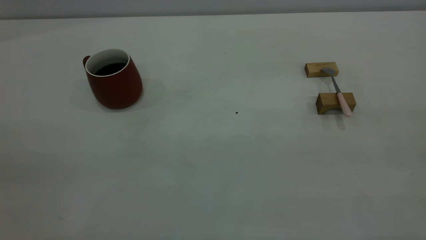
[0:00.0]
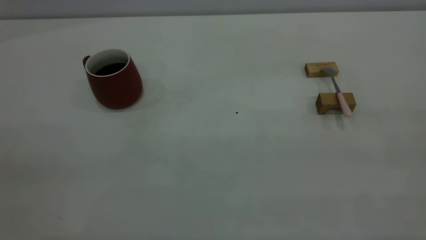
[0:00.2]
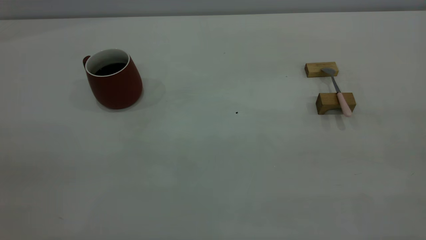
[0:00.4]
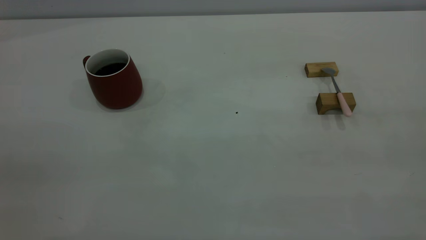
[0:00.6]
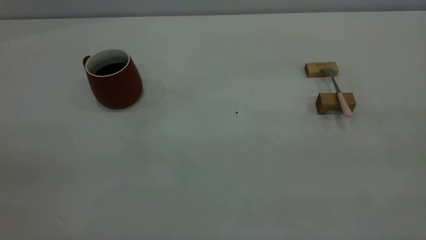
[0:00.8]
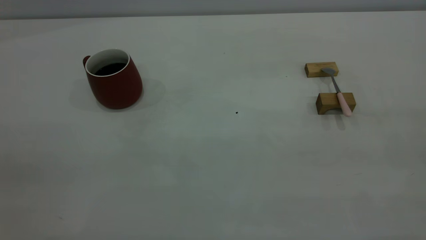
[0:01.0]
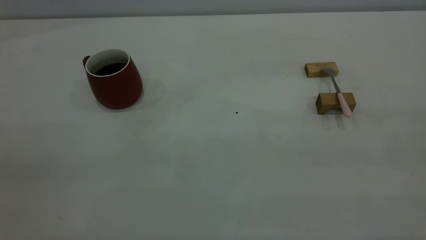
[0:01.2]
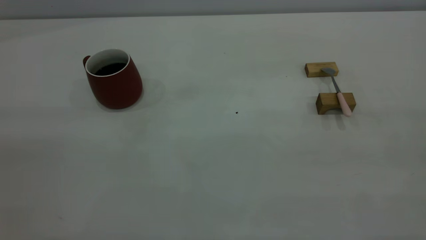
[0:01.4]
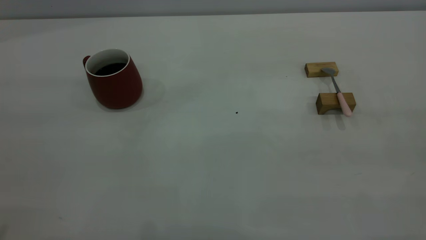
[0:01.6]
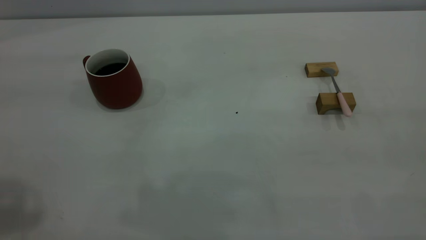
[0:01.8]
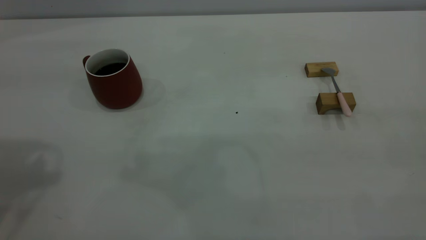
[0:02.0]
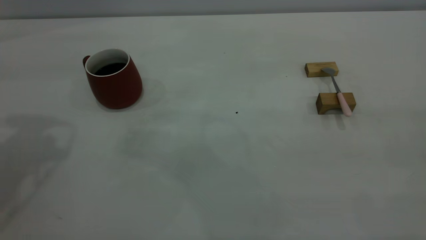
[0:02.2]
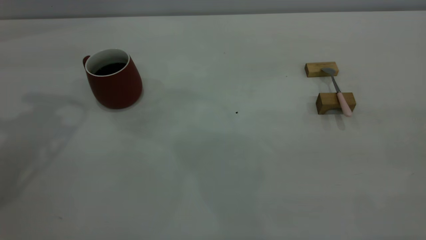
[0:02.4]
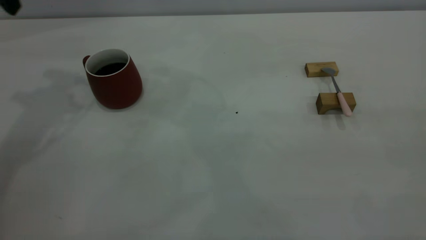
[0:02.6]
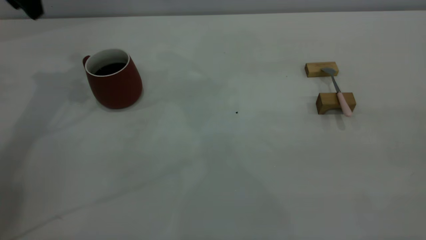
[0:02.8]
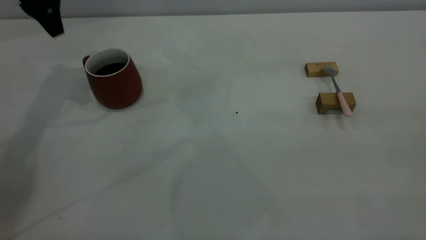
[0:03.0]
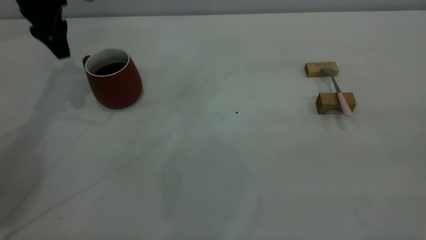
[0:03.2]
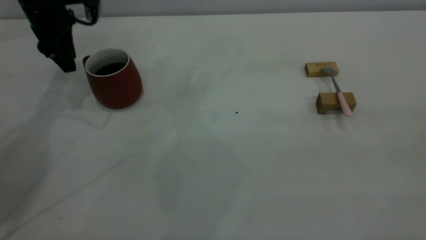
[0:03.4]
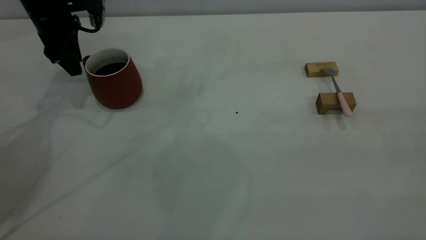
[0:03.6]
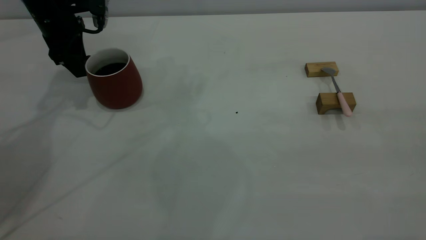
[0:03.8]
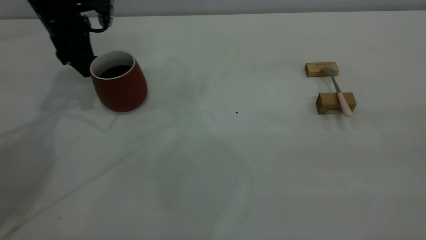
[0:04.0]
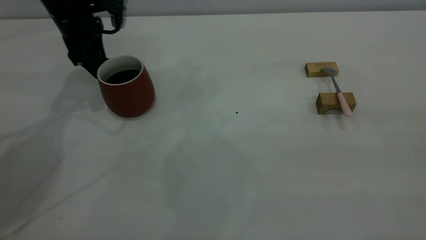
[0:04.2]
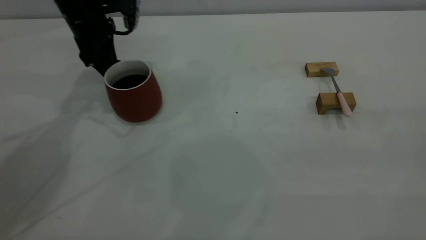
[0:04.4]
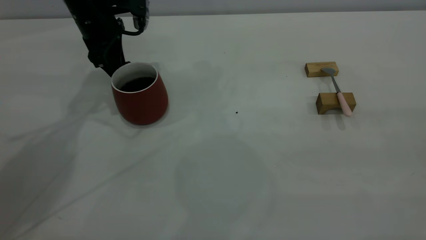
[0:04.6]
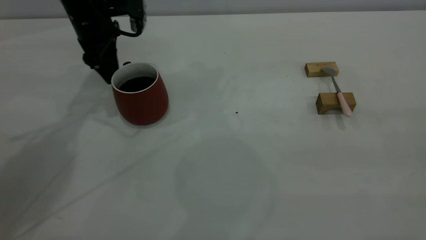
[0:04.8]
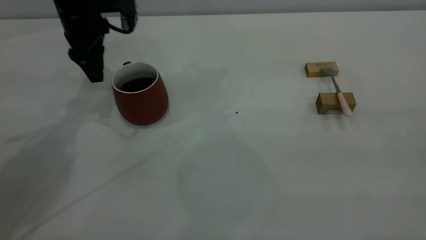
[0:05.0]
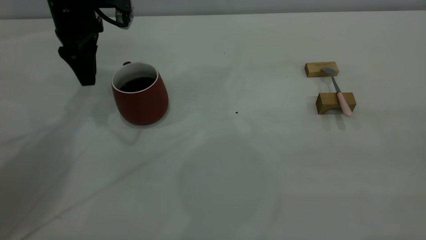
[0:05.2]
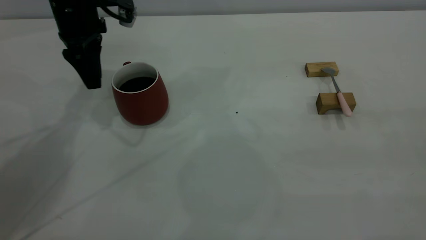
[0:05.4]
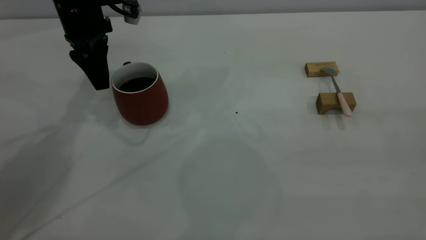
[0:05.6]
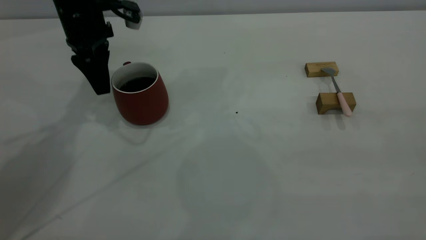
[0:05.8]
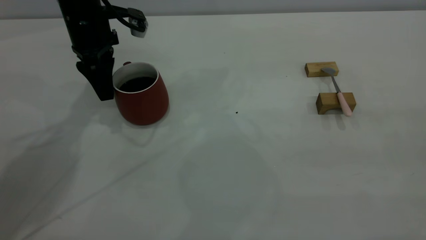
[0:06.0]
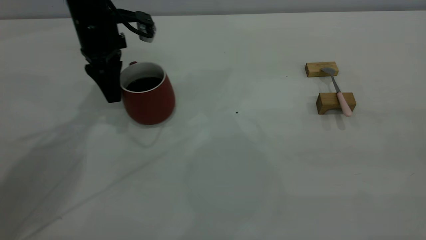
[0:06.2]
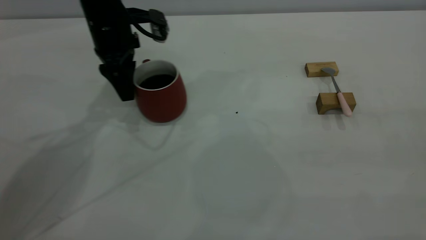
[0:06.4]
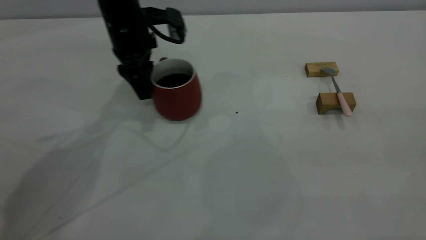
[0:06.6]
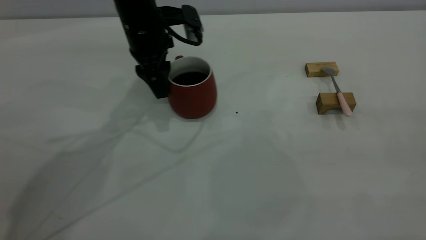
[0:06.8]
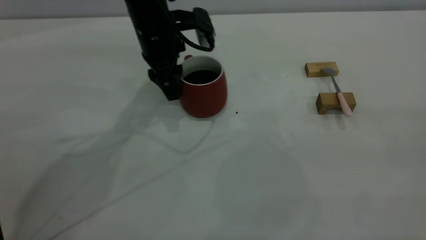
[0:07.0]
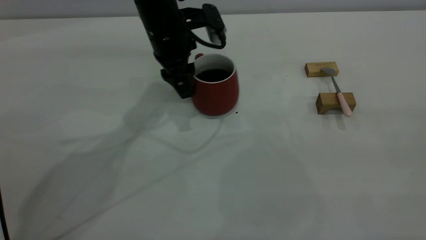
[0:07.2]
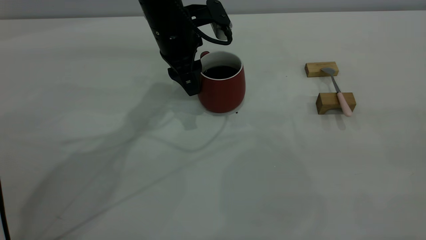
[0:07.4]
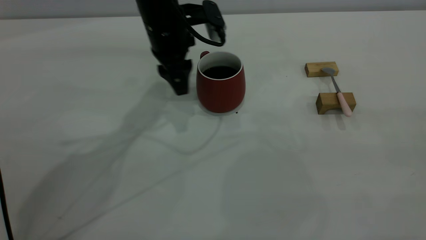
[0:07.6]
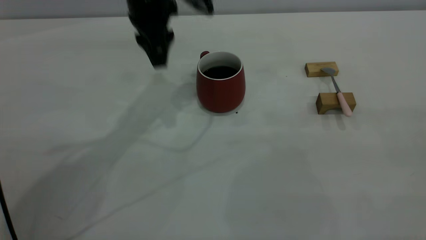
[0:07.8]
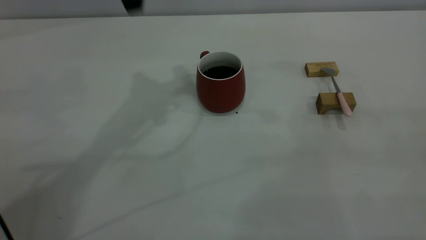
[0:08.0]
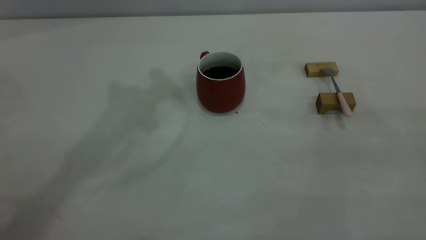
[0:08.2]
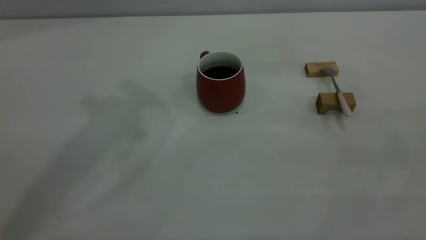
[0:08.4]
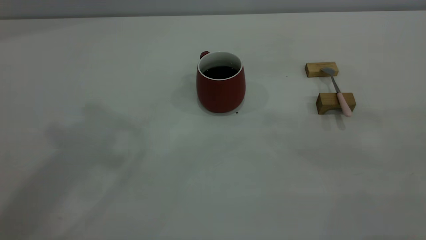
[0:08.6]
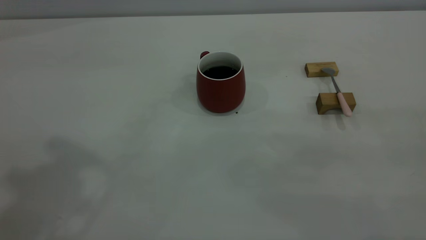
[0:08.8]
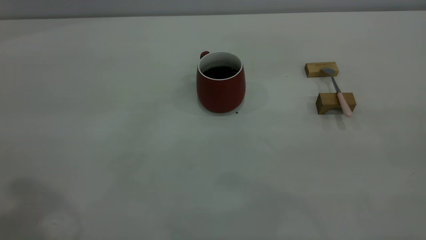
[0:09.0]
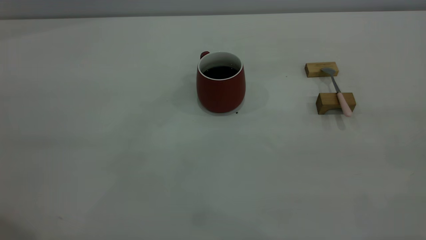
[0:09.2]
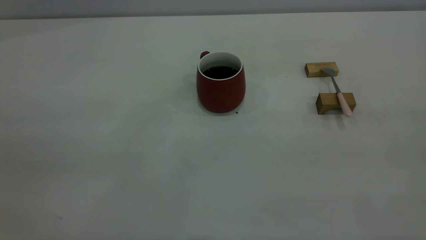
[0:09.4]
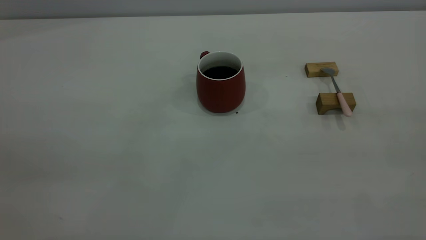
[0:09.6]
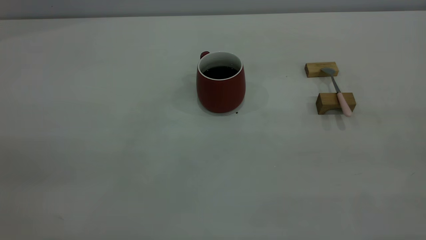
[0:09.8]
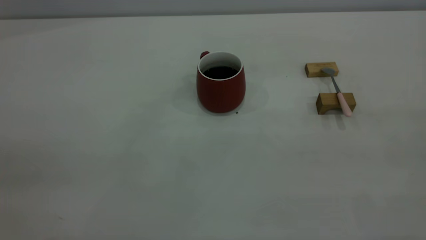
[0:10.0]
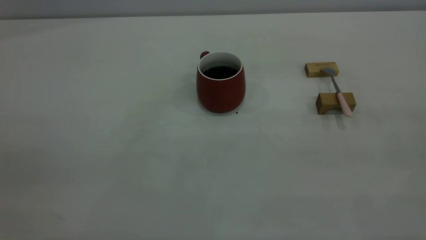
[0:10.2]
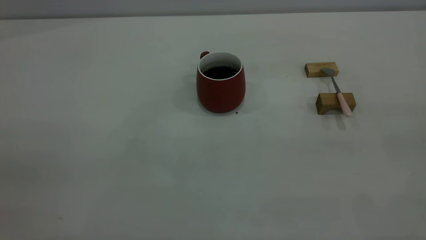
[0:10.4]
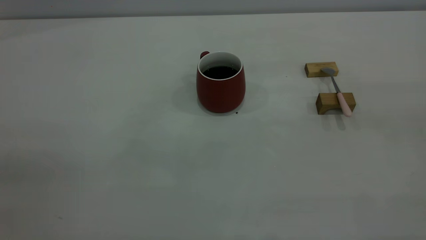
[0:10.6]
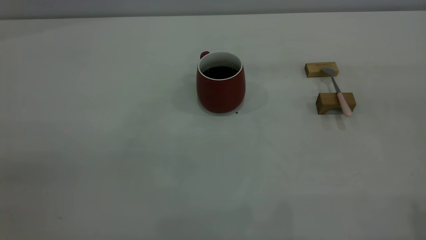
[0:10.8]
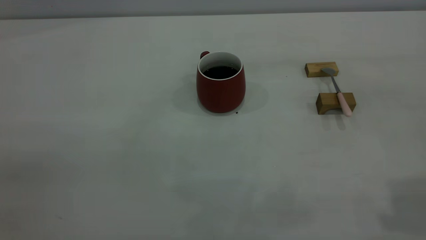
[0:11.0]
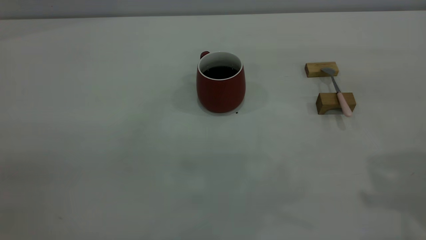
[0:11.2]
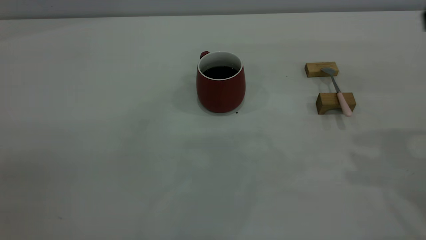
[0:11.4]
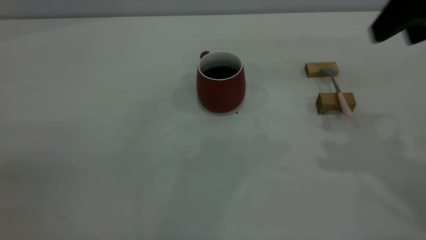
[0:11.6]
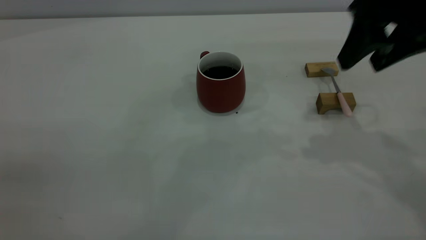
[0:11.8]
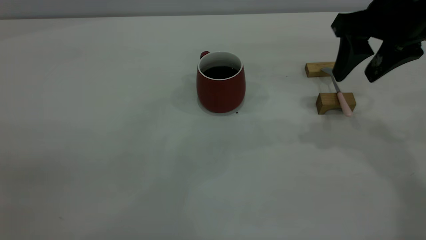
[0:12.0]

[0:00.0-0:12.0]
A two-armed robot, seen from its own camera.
Step, 0:00.0 to 0:07.8: Move the cup with coffee to the center of view.
0:01.6 to 0:03.0: The left gripper moves forward and downward, some 40 cm.
0:03.0 to 0:04.4: The left gripper heads downward and to the right, covering some 10 cm.
0:06.0 to 0:07.6: The left gripper goes some 10 cm to the right.
0:07.6 to 0:09.0: The left gripper is displaced backward, upward and to the left by about 40 cm.
0:10.4 to 0:12.0: The right gripper travels forward and downward by about 35 cm, and opens up.

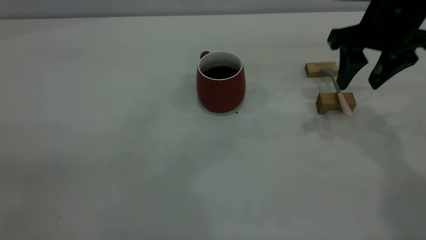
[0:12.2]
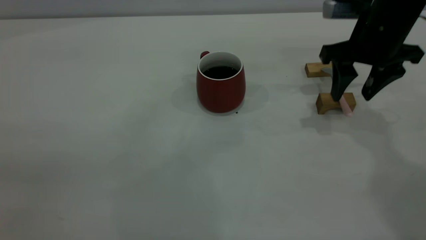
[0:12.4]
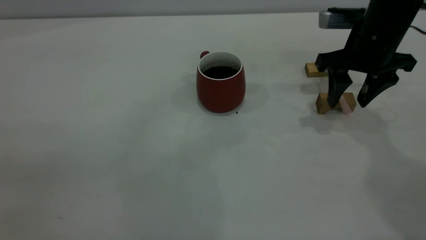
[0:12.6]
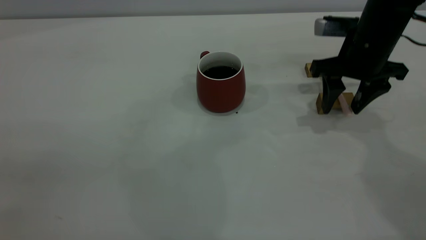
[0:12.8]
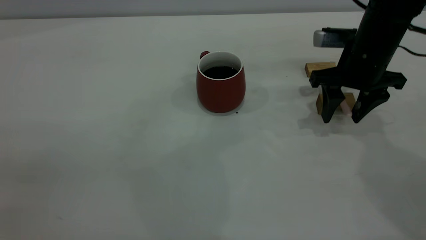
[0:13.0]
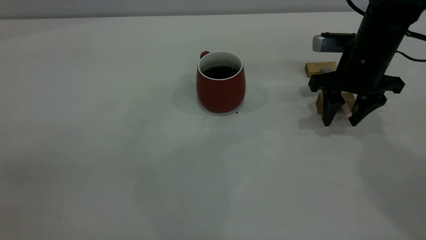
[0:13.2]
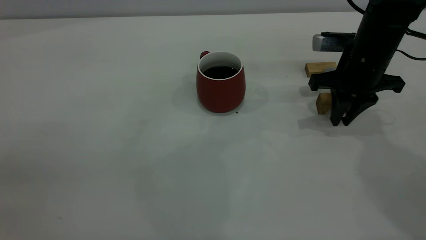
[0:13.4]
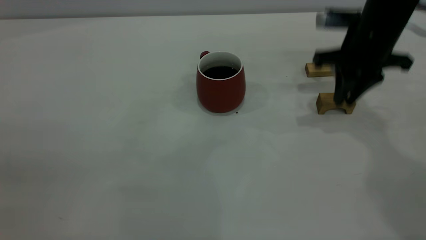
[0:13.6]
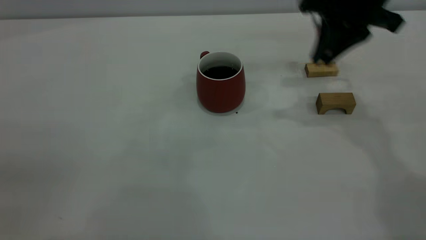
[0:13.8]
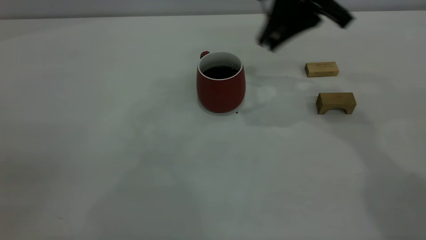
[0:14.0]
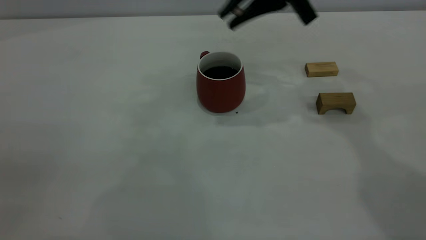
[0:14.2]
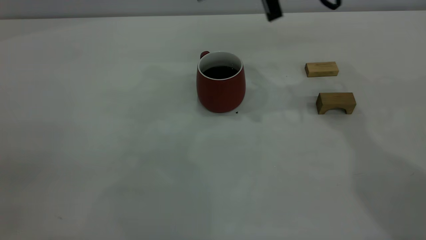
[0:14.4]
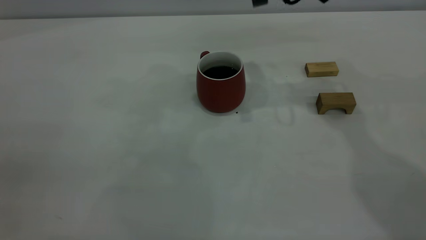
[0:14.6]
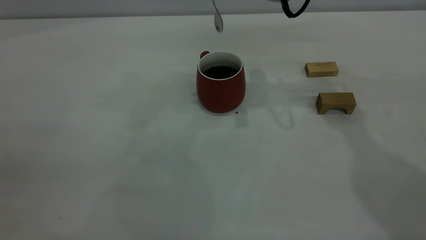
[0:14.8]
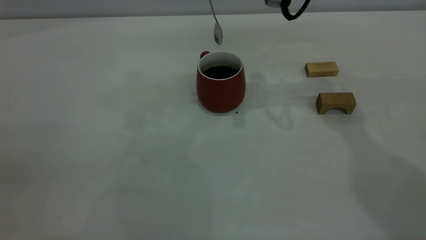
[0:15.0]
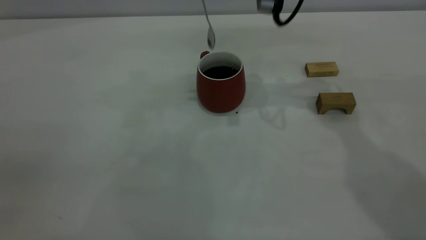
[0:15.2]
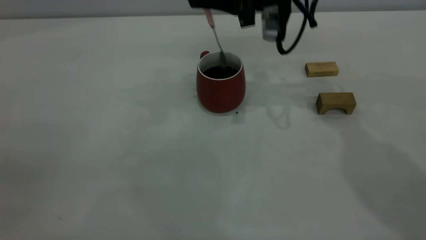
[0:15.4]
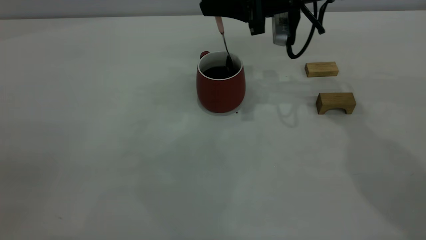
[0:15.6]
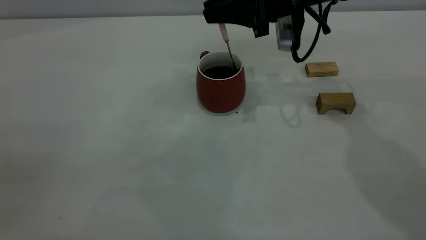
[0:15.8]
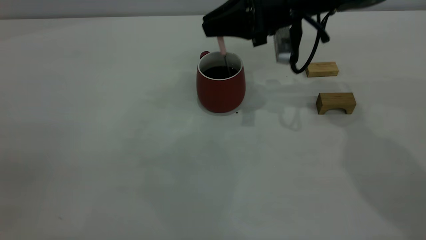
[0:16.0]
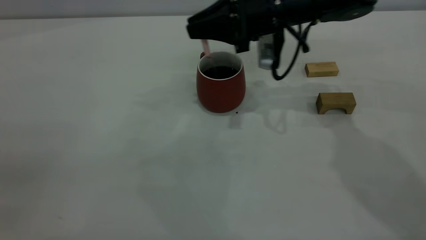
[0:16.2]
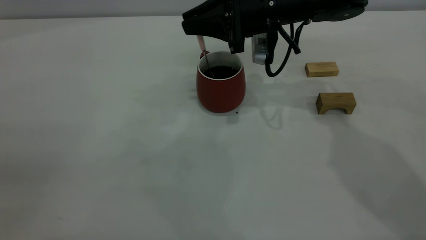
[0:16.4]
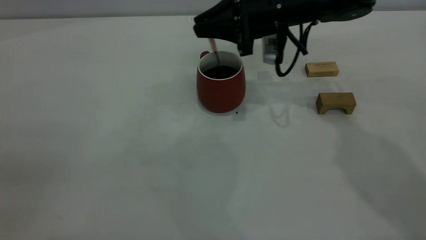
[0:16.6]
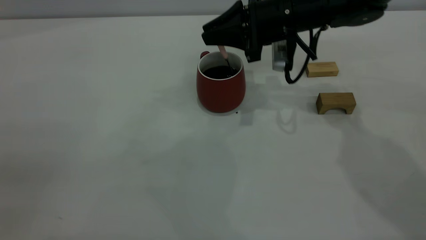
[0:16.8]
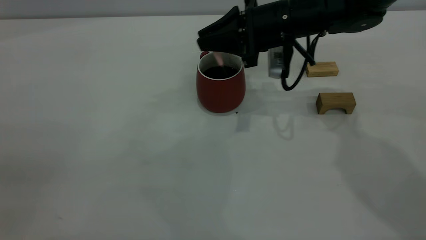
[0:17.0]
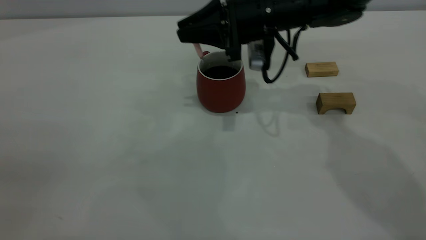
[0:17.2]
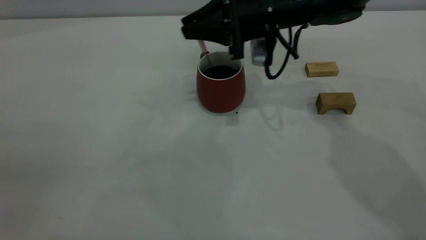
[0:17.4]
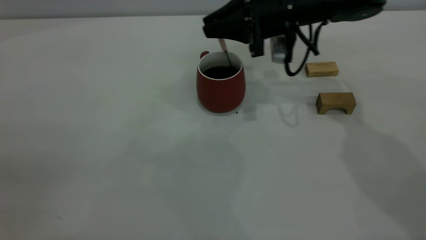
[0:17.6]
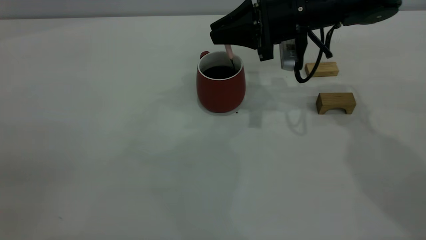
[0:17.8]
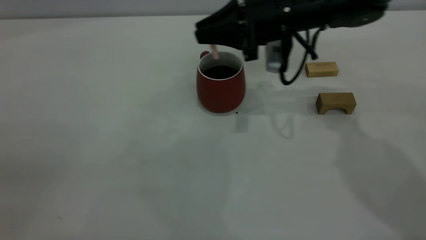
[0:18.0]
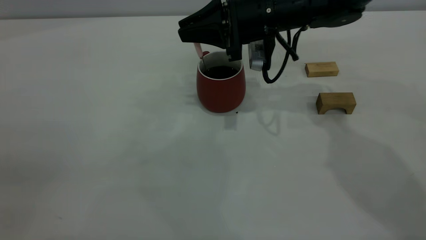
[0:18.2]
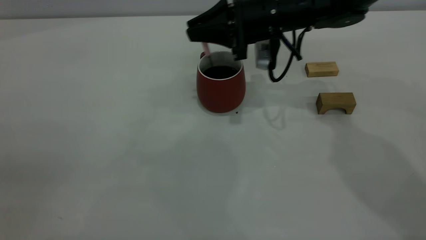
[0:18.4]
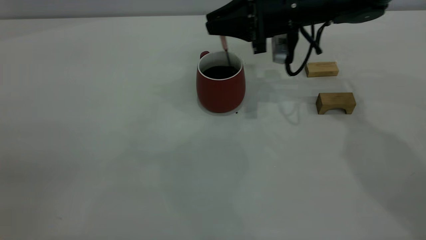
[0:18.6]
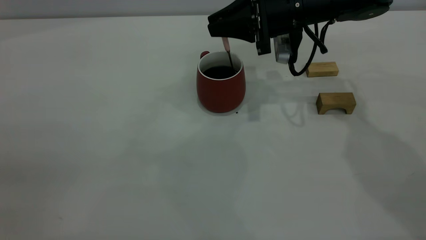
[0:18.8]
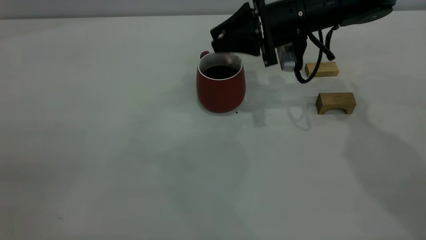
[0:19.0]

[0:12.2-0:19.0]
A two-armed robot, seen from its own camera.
0:12.2 to 0:13.6: The right gripper moves some 10 cm downward and comes back, and closes up.
0:13.6 to 0:15.0: The right gripper travels to the left and upward by about 15 cm.
0:15.0 to 0:16.2: The right gripper goes approximately 10 cm downward.
0:16.2 to 0:17.6: There are only small adjustments of the grippers.
0:17.6 to 0:19.0: The right gripper opens up.
